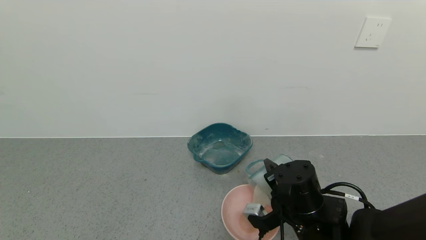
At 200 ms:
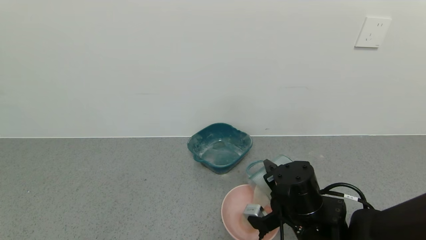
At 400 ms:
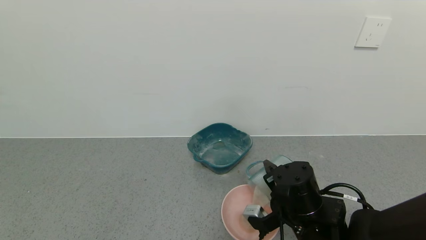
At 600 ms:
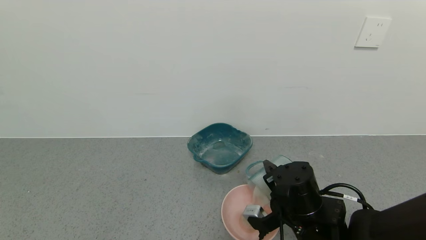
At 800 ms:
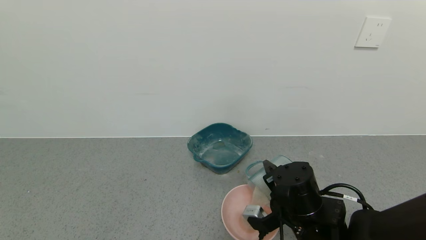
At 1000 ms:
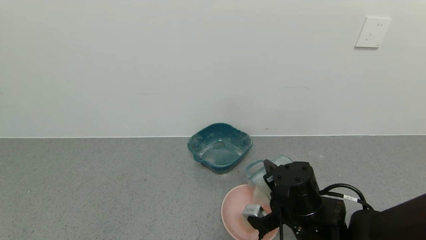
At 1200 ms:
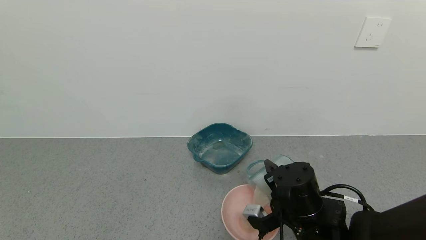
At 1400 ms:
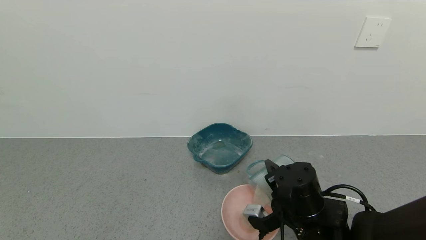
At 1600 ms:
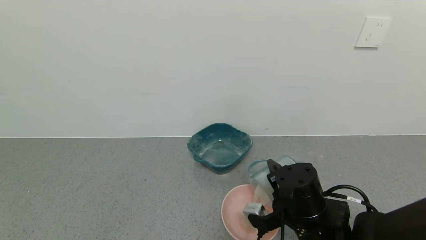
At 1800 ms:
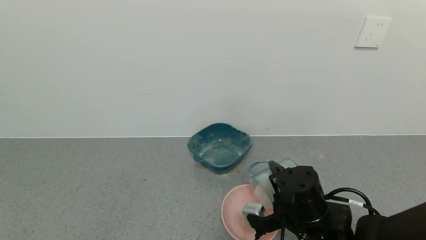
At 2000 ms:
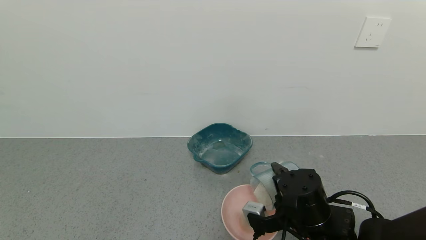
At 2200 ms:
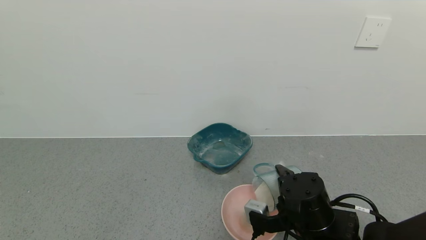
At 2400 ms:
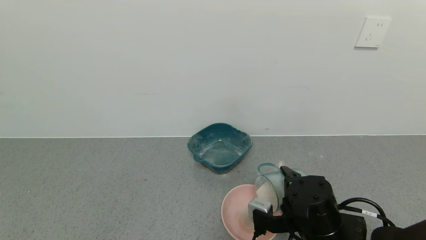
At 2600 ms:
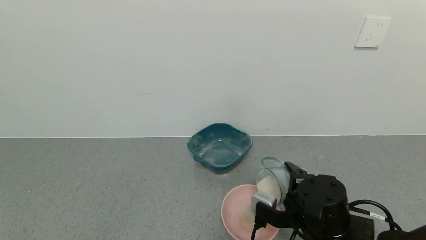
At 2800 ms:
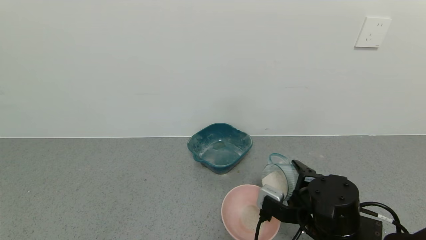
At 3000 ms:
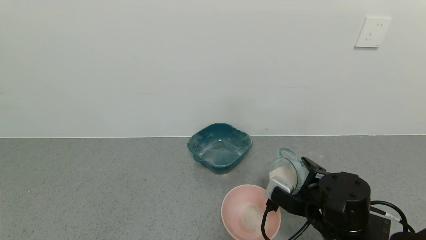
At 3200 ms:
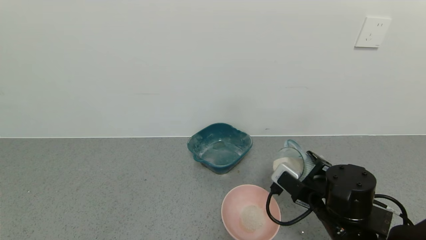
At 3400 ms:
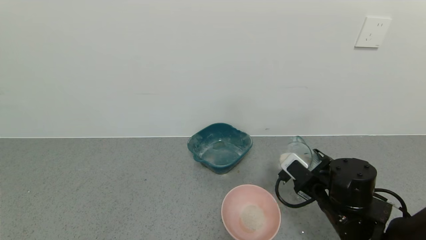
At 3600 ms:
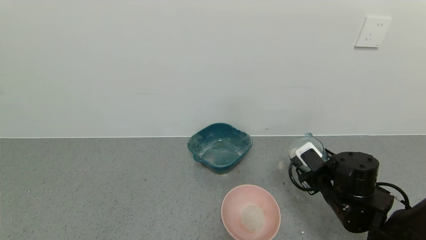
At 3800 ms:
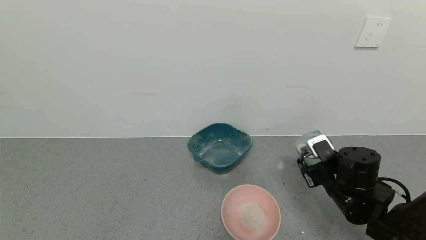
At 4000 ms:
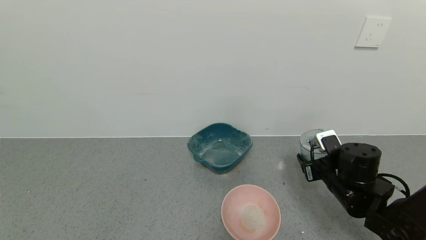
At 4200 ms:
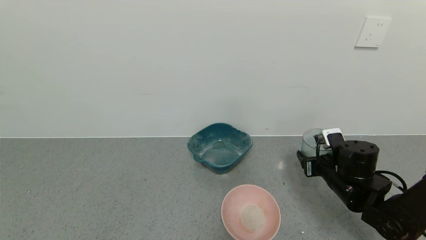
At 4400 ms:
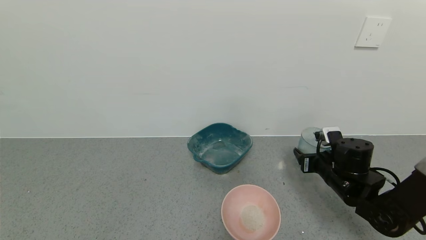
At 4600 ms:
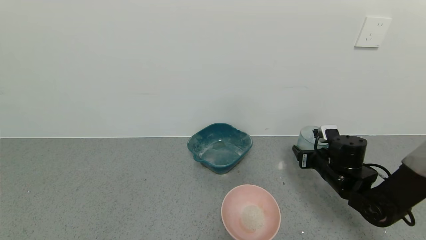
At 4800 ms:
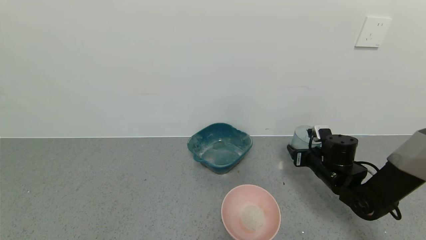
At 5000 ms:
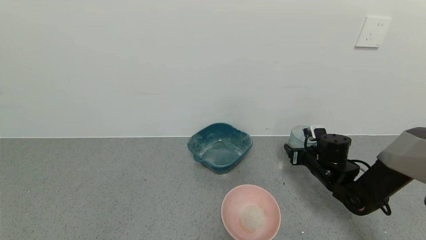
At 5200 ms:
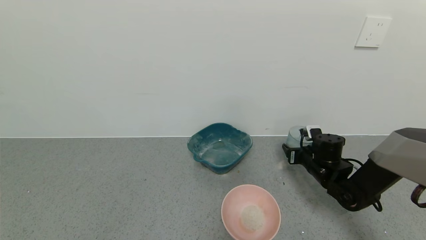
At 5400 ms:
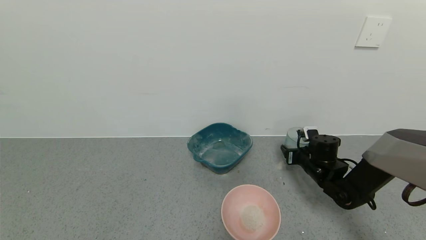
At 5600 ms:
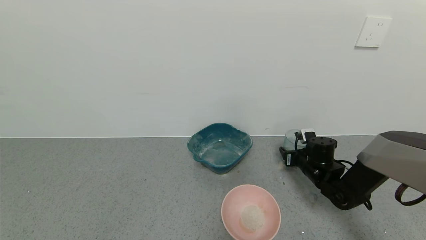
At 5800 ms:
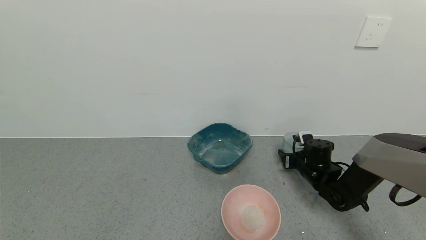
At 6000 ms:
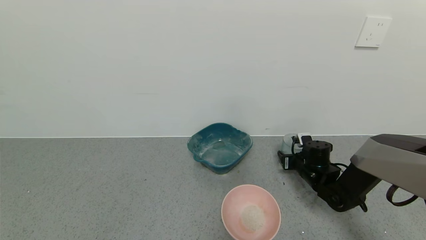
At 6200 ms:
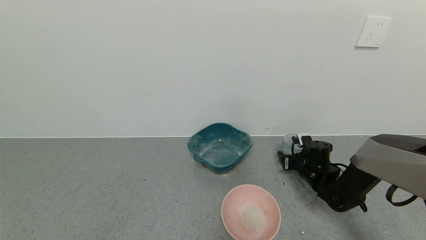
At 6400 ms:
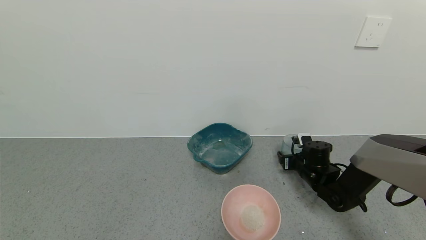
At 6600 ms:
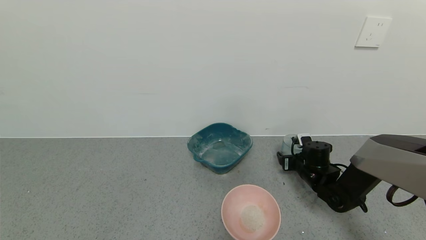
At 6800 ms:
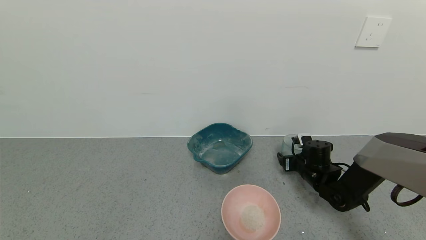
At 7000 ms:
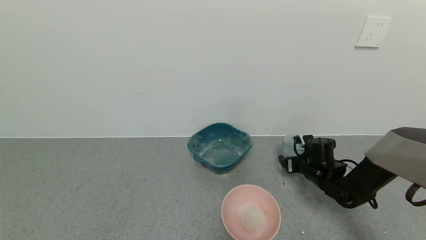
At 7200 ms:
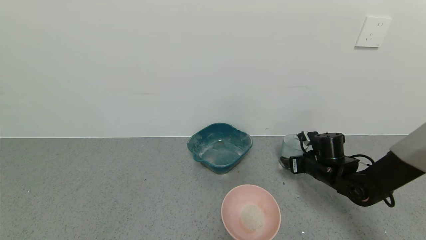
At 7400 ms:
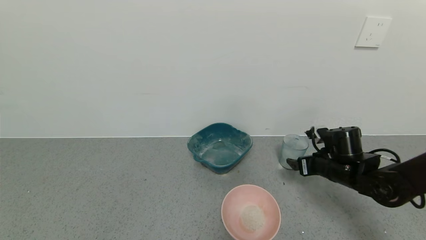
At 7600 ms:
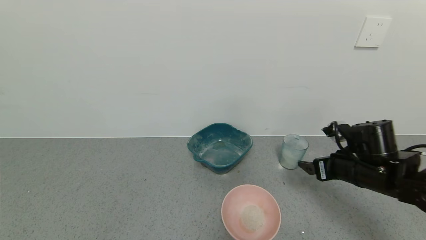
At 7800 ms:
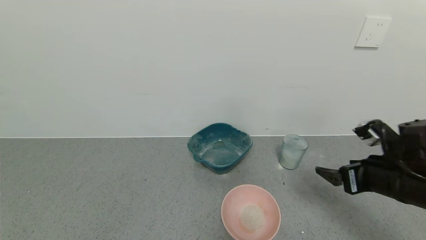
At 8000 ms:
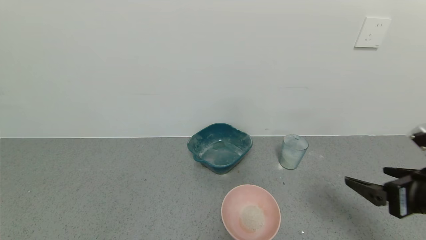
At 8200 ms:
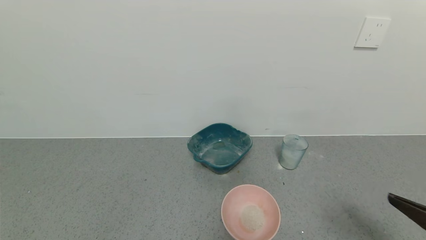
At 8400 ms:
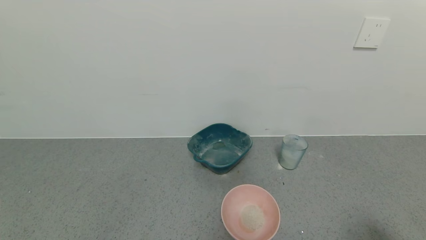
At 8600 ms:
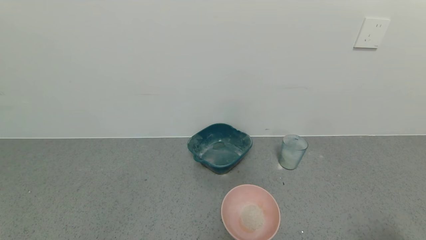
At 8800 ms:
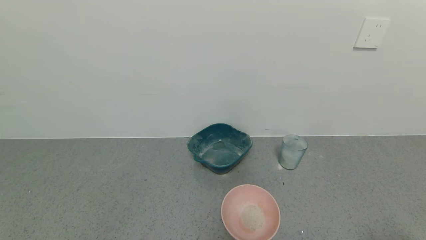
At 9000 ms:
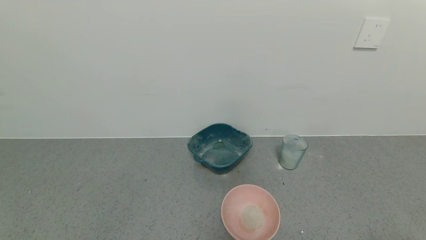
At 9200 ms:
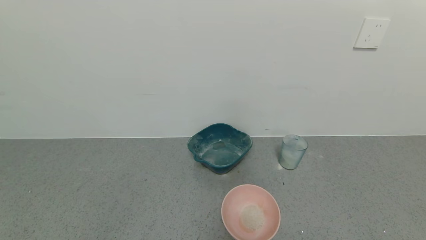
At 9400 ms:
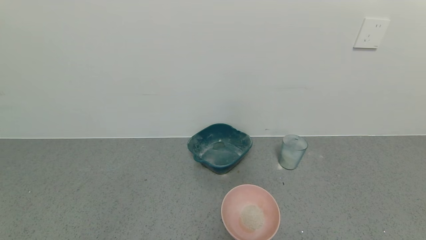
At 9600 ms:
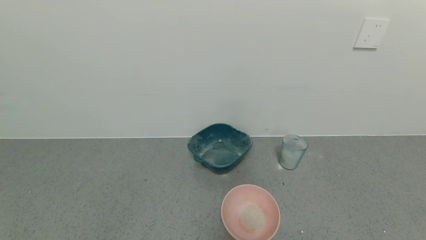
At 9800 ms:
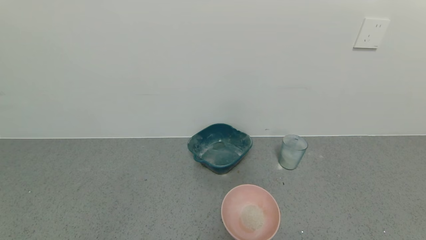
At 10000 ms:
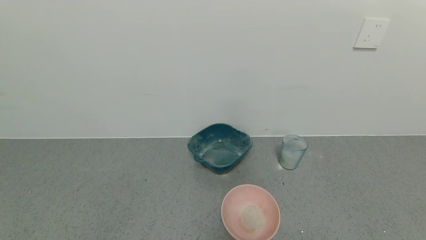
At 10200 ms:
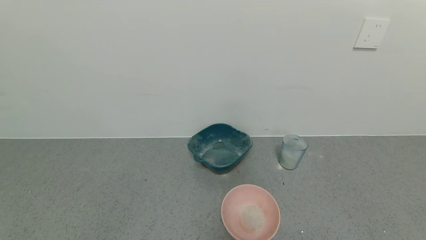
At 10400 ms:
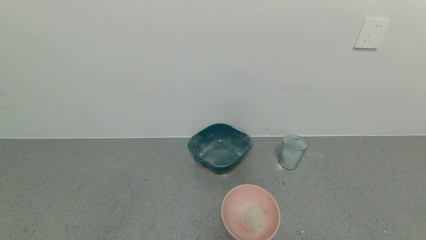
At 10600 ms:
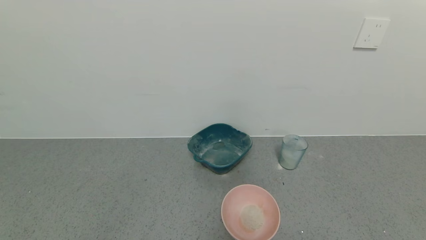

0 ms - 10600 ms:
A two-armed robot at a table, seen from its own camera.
Task of the whole recording: use a gripper to pick up the cup and pour the powder into a bowl or tray.
Step, 0 ms - 2400 ms: Pour the powder into the pink bowl with the right gripper.
Step, 2600 ms - 7200 ms: Place the glass cup down with the right gripper.
0 ms - 1600 ms: Neither gripper changes place.
3000 ms - 4600 ms: The right gripper goes approximately 15 cm forward and to the right.
4600 ms - 6000 ms: The right gripper travels forward and downward by roughly 10 cm.
6000 ms - 7600 ms: The right gripper is displaced upward and backward by about 15 cm, and opens.
7600 ms - 9000 ms: The right gripper is displaced backward by roughly 30 cm.

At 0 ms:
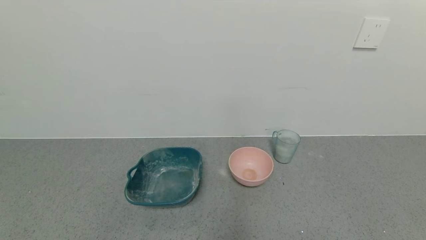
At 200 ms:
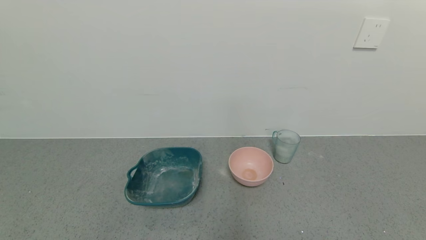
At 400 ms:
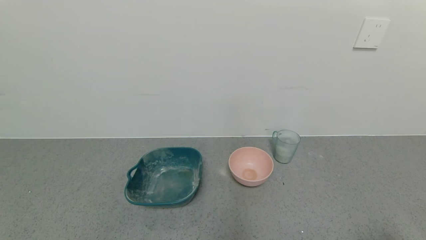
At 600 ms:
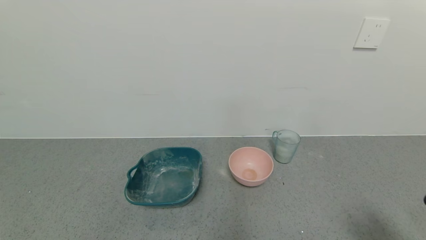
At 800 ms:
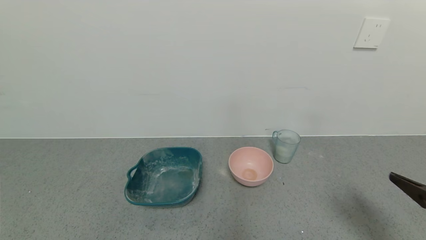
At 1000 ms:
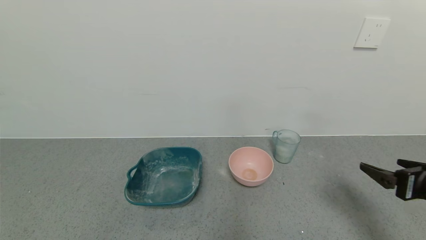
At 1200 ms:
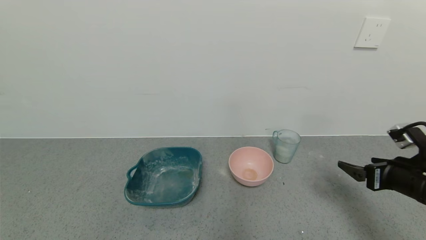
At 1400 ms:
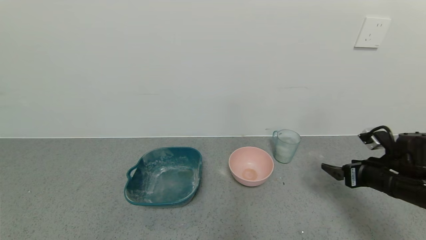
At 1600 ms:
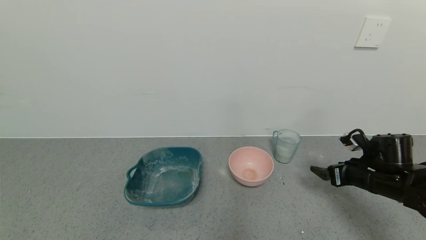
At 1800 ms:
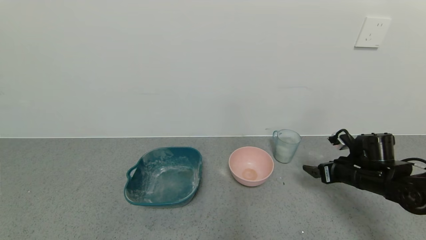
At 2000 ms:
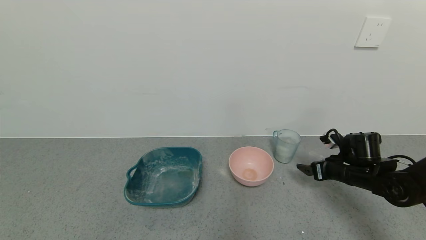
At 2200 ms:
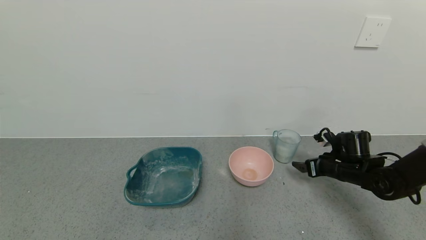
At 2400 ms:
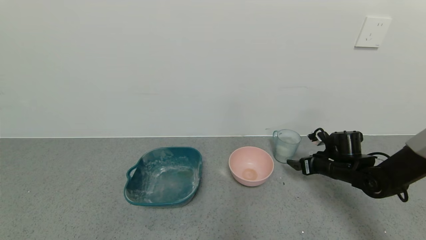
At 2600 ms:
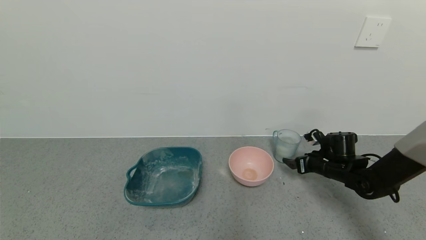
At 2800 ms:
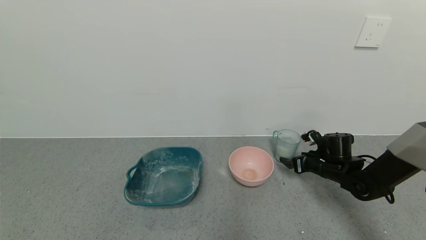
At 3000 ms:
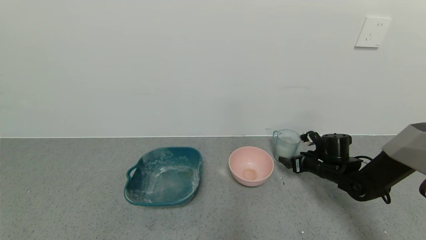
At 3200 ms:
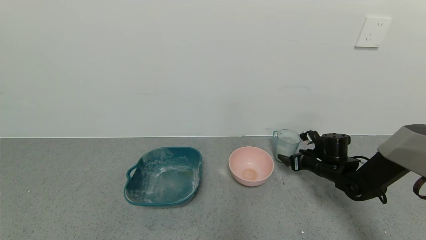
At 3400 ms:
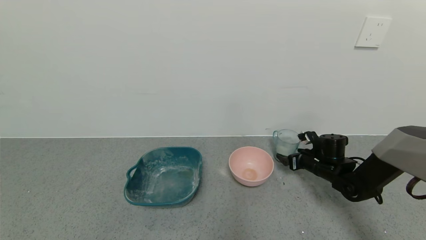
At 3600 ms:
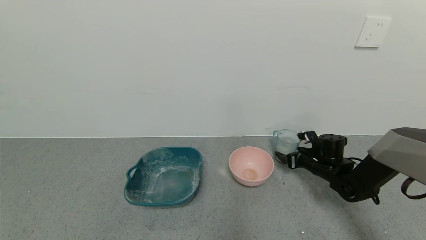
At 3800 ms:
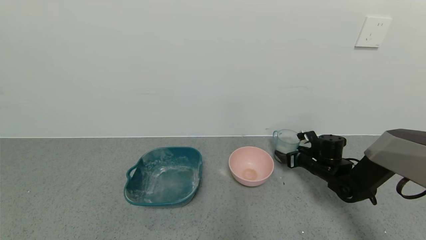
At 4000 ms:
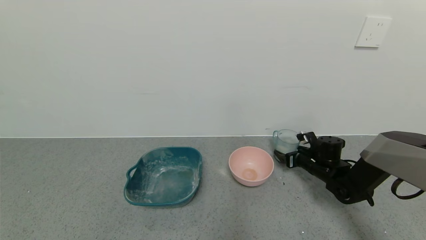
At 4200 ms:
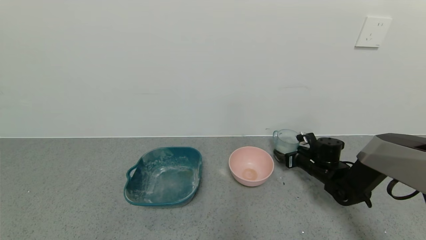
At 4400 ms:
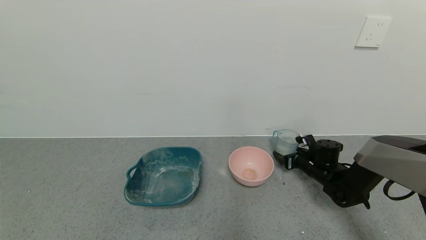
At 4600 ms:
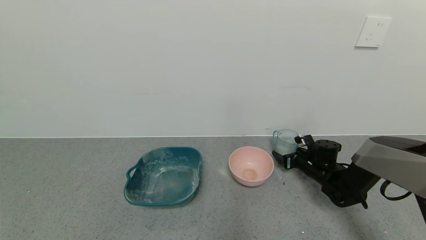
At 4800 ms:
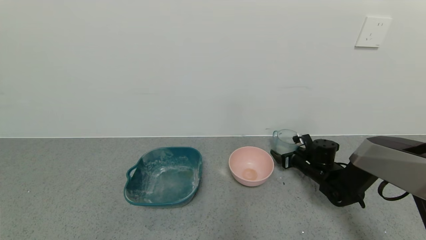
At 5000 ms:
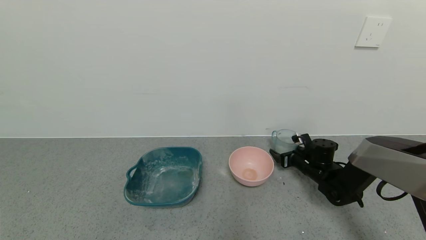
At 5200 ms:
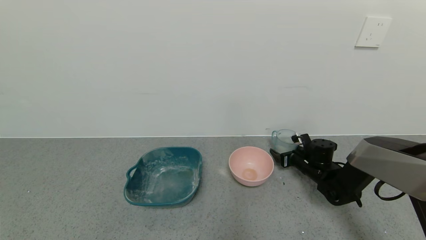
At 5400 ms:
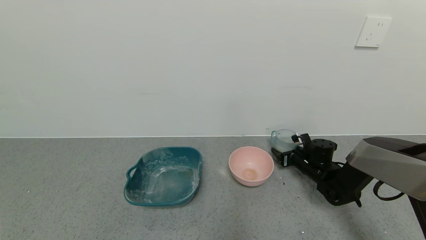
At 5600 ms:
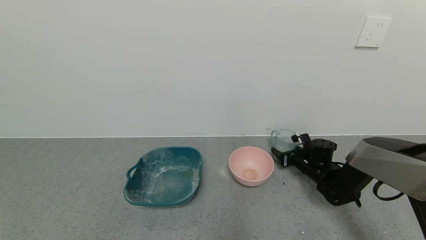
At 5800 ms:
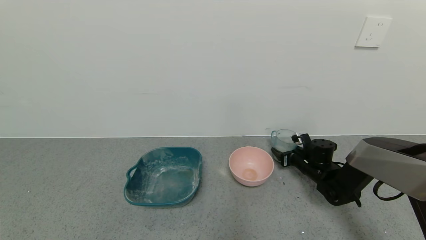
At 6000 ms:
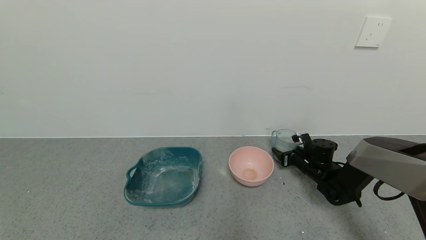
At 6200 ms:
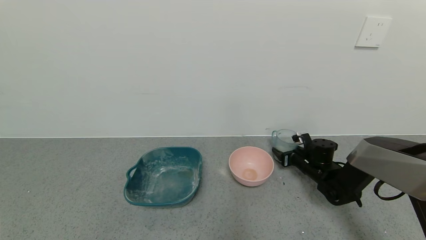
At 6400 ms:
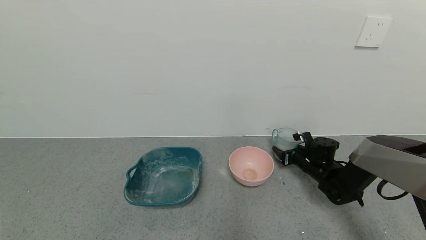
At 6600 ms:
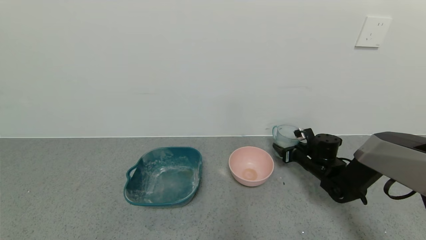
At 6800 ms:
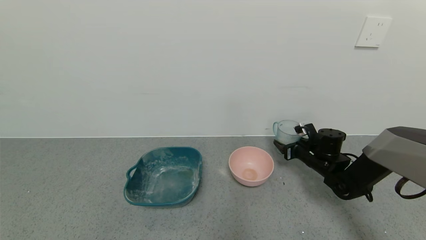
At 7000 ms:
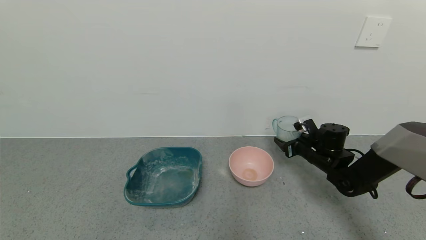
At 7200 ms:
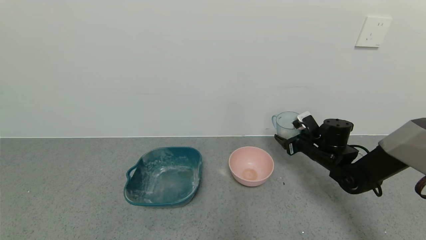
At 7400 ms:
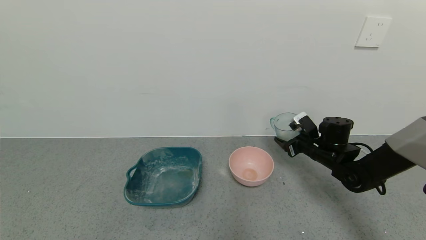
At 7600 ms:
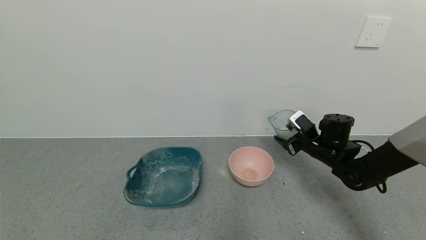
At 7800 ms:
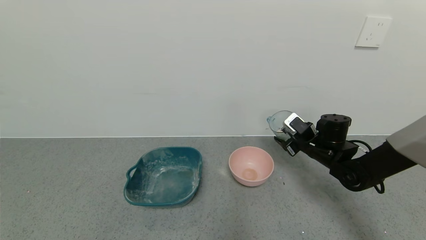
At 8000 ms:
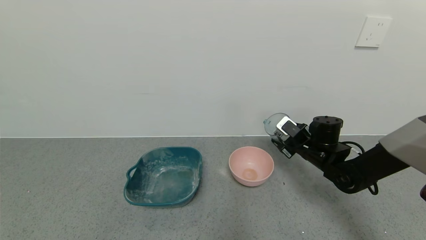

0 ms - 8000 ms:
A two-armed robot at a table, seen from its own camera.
Task of the whole recording: use a gripper to pick up the cup and pour the powder into a bowl or tray.
Step, 0 ms - 5600 ms: Grasp the glass of powder with the right gripper.
0 ms - 1600 ms: The right gripper is displaced forward by some 30 cm.
1600 ms - 3200 ms: The right gripper moves forward and downward, about 10 cm.
3200 ms - 4800 ms: The grippers make only small movements.
4800 ms - 6400 ms: The right gripper closes.
6400 ms - 8000 ms: The right gripper goes about 10 cm upward.
